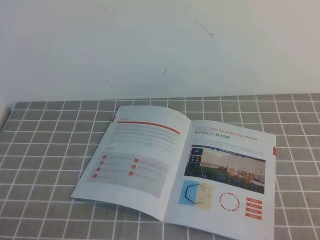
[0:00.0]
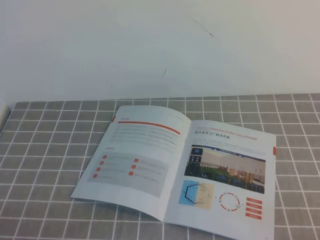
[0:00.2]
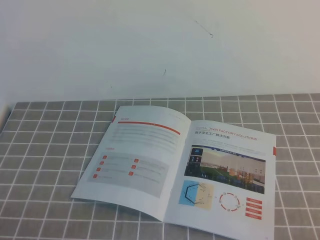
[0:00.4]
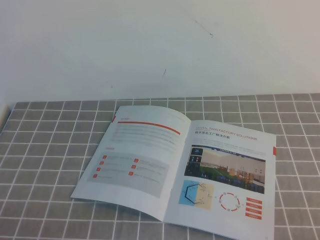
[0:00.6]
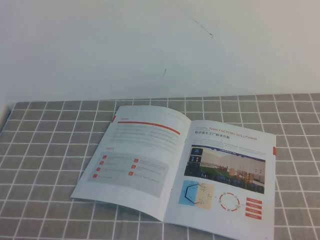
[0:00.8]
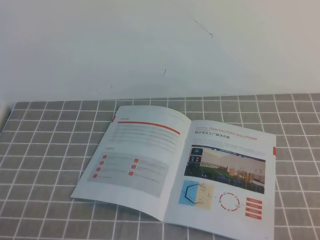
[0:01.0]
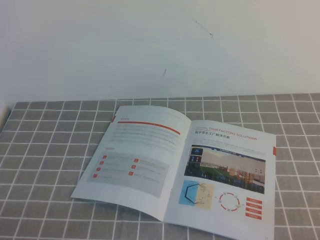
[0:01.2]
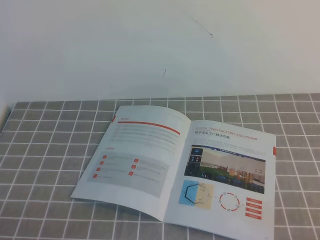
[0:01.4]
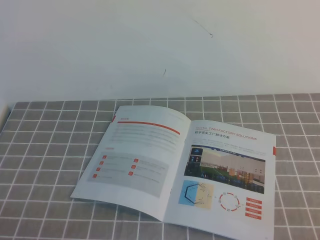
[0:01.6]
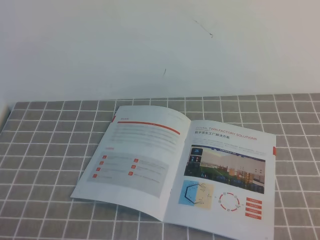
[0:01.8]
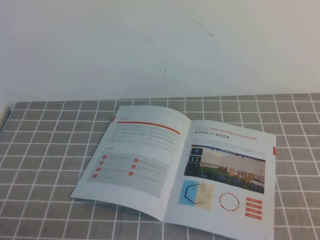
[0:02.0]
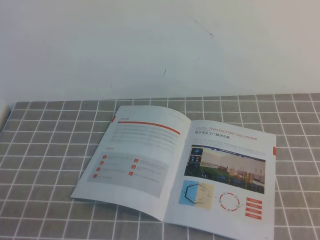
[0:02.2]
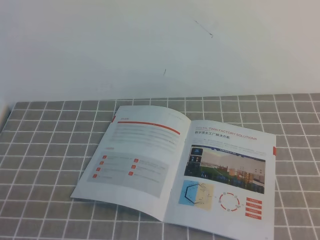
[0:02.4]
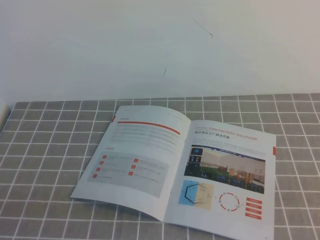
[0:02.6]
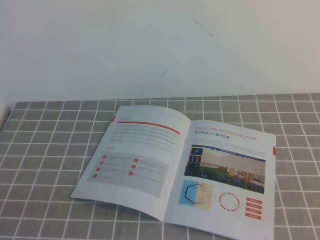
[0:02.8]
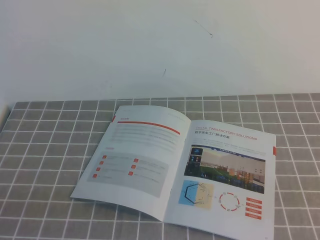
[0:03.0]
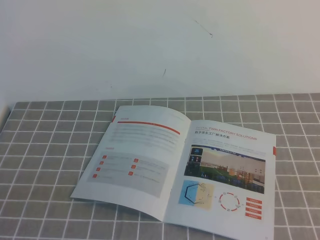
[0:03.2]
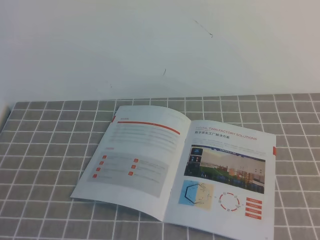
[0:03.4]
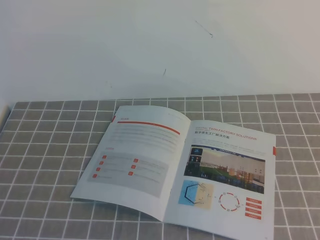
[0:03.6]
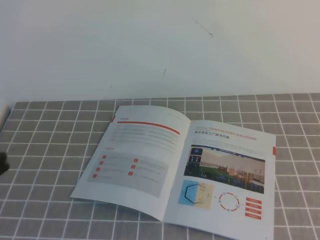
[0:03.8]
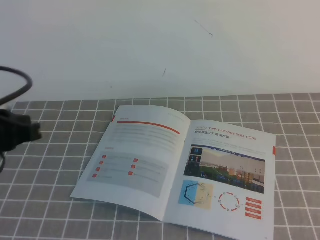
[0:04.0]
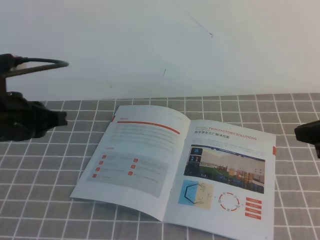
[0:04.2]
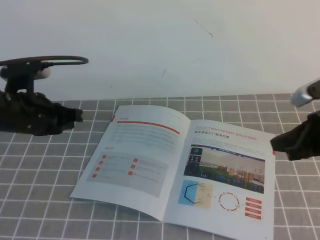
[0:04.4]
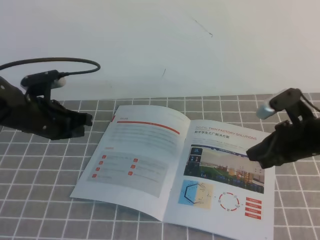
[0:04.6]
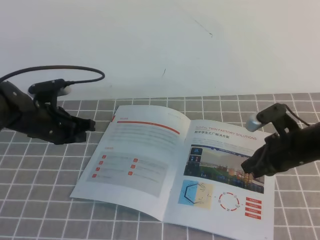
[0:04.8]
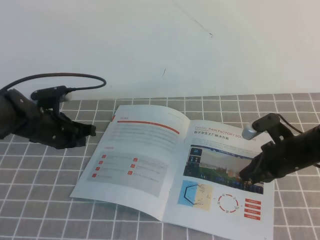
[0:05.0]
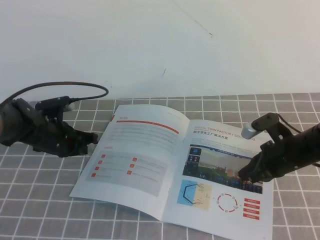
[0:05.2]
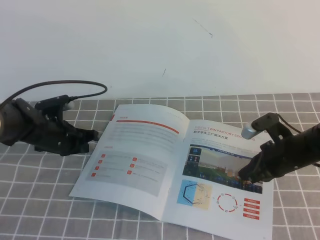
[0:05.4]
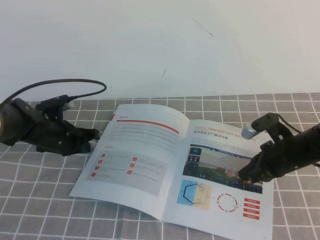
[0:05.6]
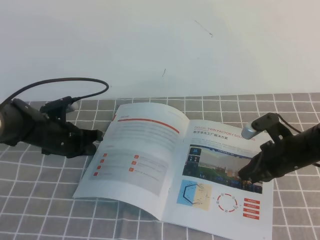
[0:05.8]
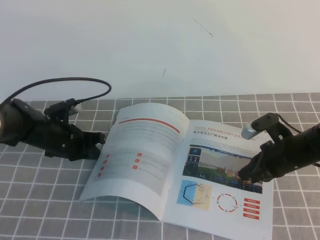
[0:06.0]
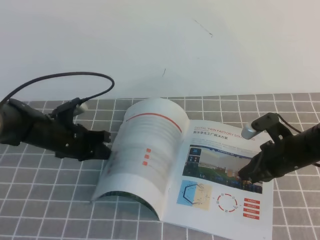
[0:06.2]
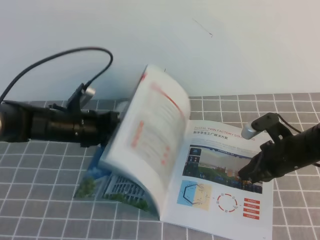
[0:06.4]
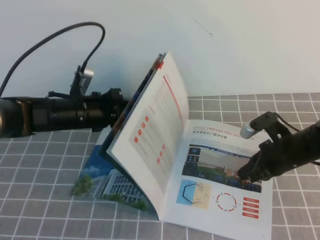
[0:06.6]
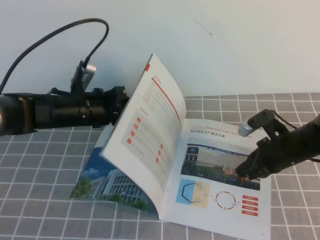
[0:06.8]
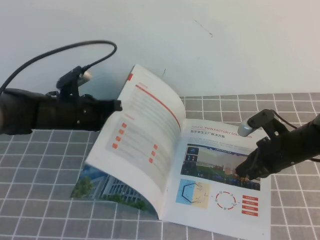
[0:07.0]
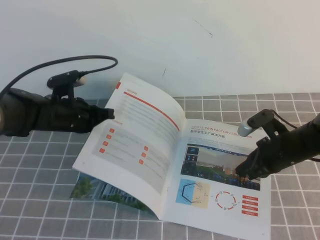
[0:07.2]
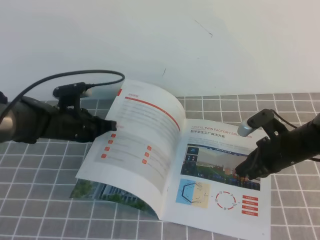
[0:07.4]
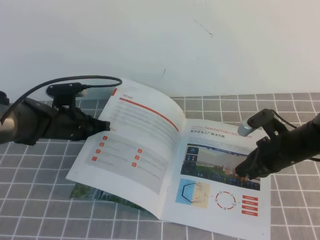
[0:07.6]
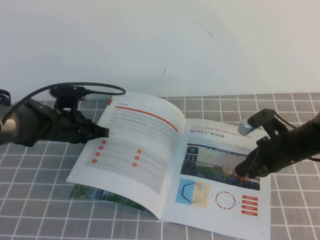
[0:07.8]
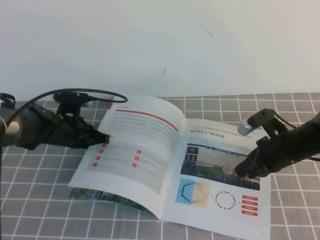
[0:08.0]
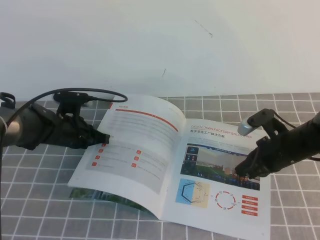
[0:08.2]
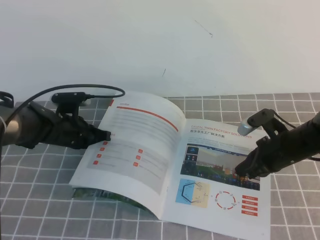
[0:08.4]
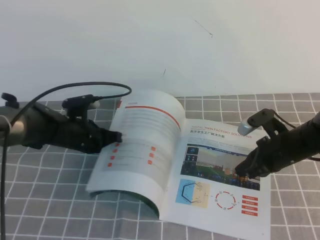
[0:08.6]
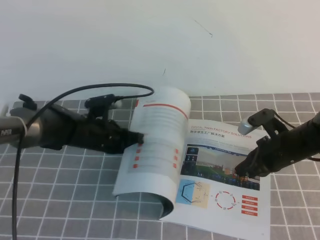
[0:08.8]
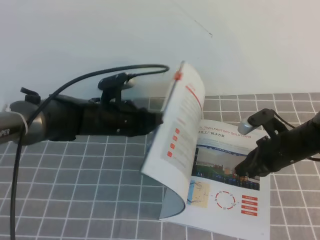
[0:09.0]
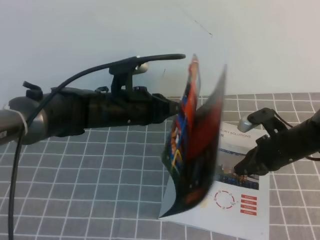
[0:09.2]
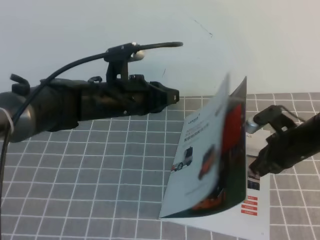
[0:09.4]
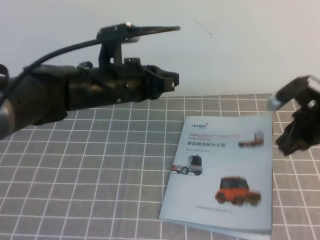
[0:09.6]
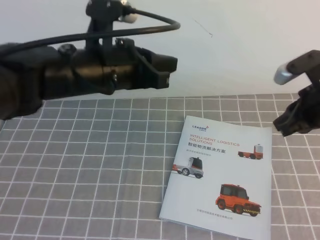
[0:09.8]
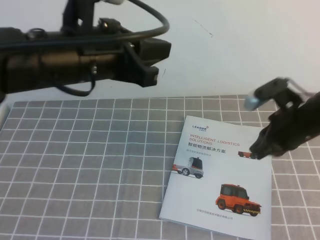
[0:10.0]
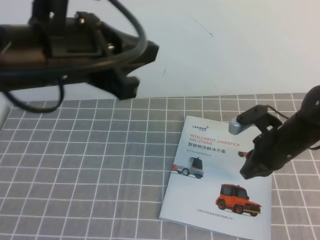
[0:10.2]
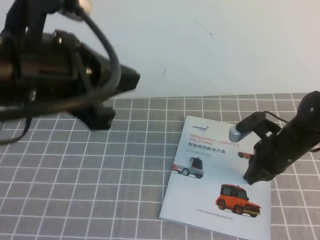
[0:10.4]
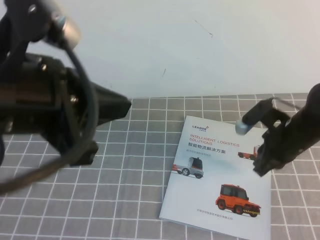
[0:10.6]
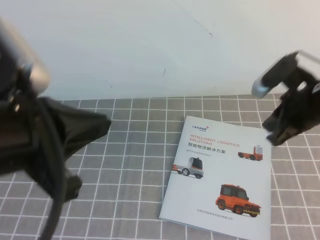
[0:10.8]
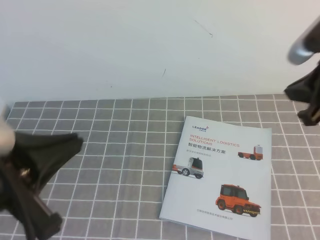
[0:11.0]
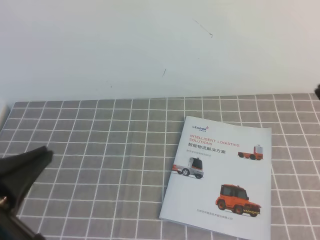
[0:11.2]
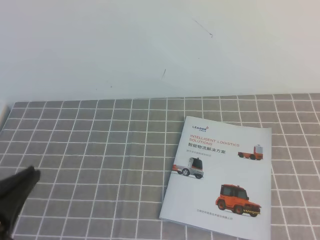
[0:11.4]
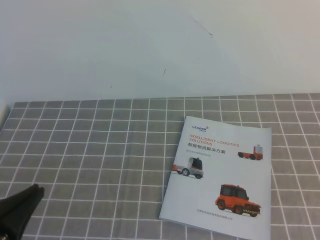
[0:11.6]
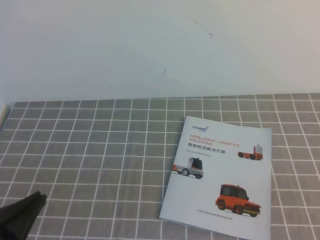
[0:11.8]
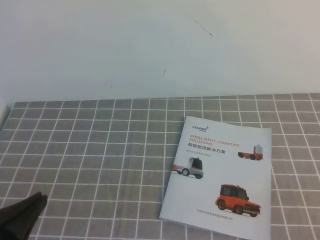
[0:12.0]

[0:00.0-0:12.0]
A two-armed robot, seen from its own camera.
Task of the whole recording: on the grey tablecloth, hold the book with one hand and close it with the other.
0:00.0 to 0:01.6: Both grippers stay put.
0:03.0 to 0:04.4: The grippers both shift forward by about 25 cm.
0:04.4 to 0:06.0: Both grippers travel together downward and forward, roughly 15 cm.
0:07.6 to 0:09.0: The left gripper heads to the right, covering approximately 10 cm.
0:09.0 to 0:10.4: The right gripper reaches about 10 cm upward, then returns. Meanwhile the left gripper is displaced upward and backward by about 30 cm.
0:10.4 to 0:12.0: The left gripper travels downward, backward and to the left by roughly 25 cm. The right gripper shifts some 30 cm backward.

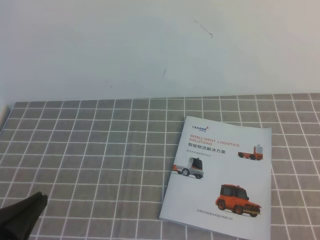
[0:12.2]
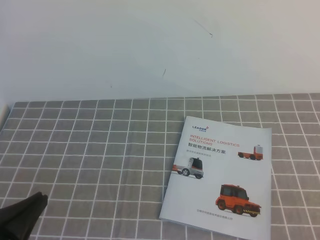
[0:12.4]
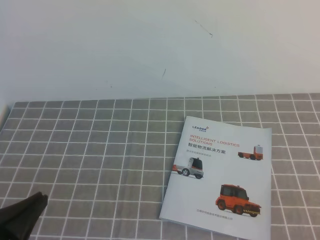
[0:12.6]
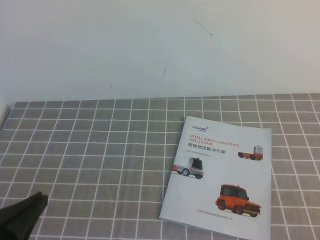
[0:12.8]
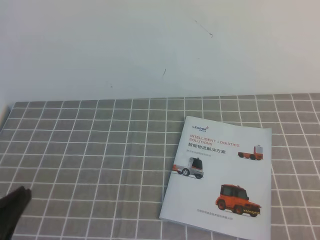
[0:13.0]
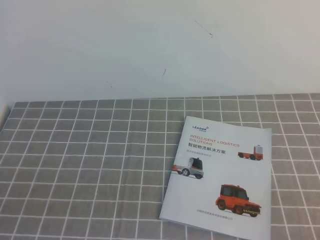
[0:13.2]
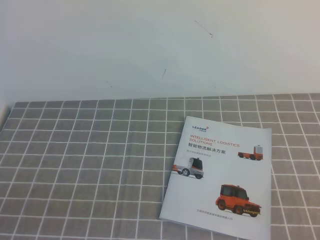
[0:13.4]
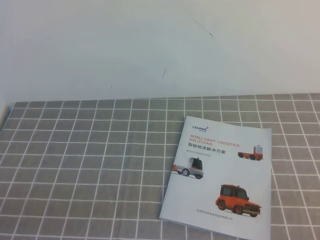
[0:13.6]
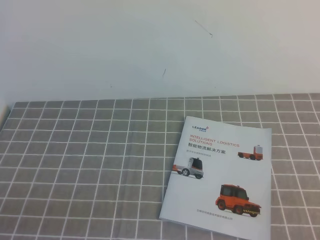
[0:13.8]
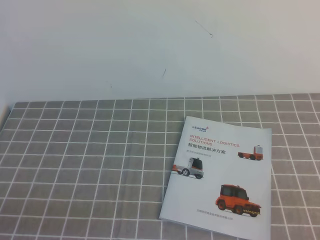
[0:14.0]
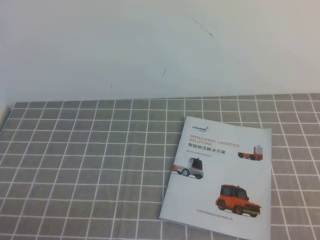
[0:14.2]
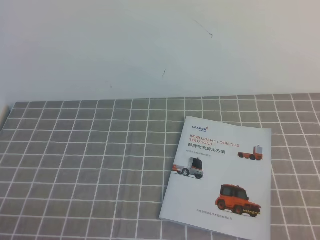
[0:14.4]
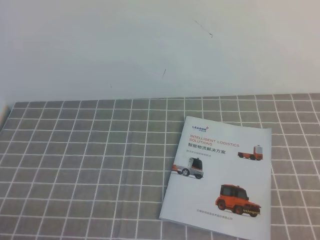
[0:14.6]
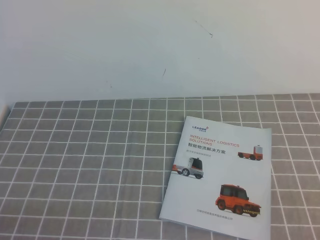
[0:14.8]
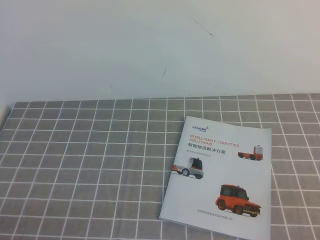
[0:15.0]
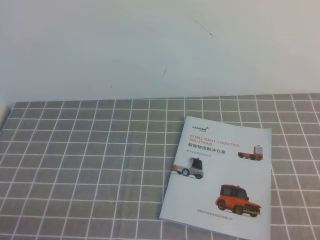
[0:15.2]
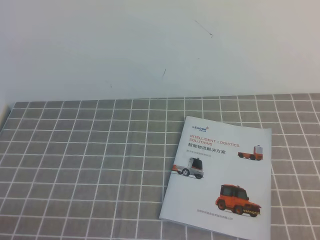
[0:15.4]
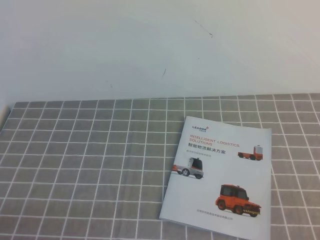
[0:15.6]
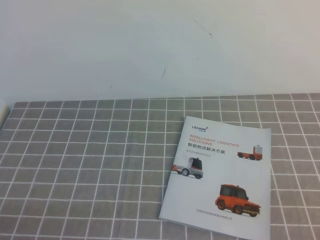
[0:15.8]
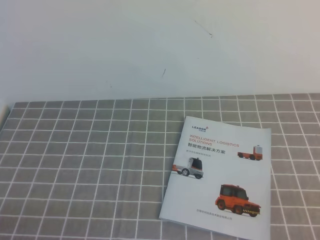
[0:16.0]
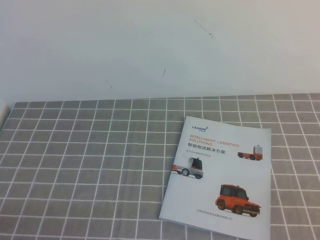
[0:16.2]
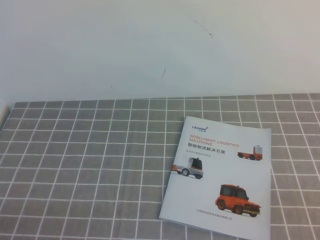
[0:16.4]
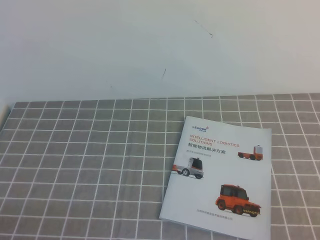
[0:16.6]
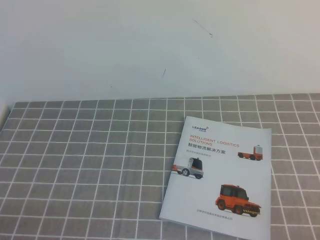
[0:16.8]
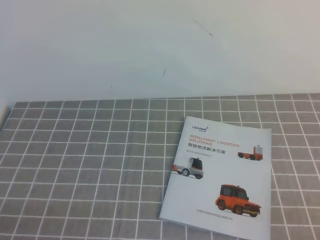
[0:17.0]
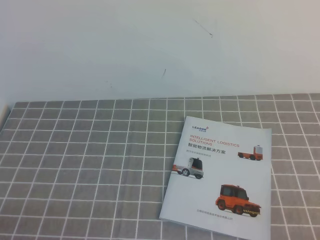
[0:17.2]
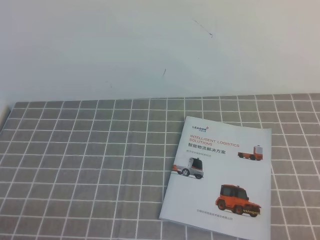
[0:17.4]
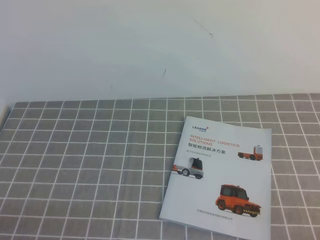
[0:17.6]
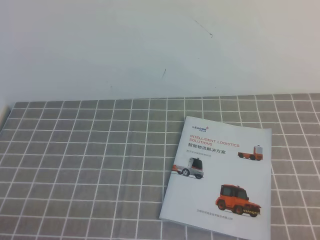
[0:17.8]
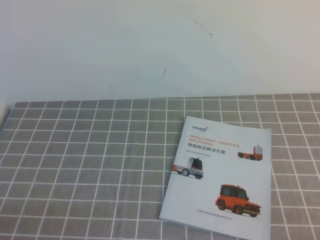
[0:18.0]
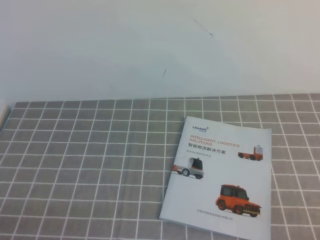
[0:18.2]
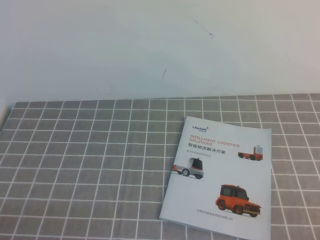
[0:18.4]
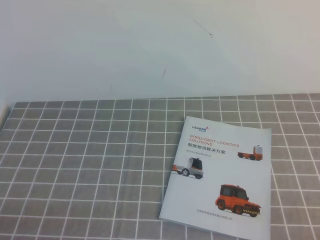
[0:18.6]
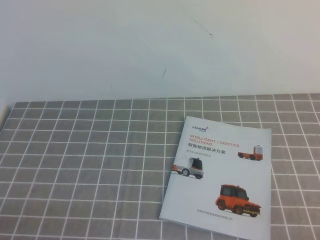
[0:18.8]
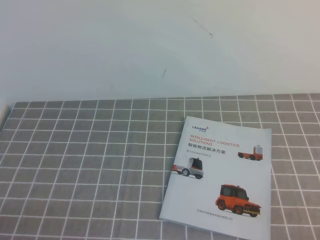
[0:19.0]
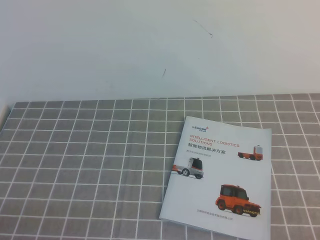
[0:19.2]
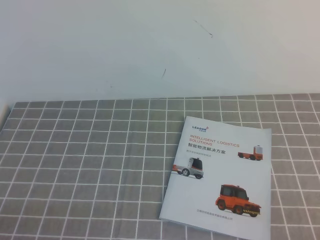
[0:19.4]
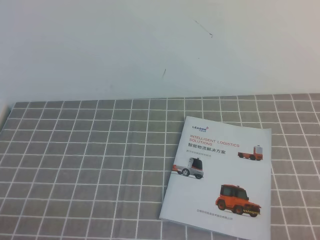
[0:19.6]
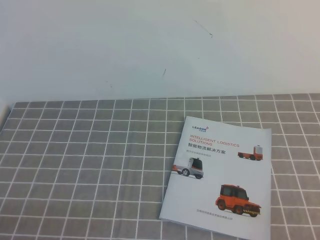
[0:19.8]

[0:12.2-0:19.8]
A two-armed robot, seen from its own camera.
Task of the whole recording: on the grey tablecloth, hold the book with one hand and close it with the other.
Step, 0:12.2 to 0:19.8: Close the open book.
0:12.2 to 0:13.8: The left gripper changes place by about 5 cm.
0:18.2 to 0:19.8: Both grippers stay about where they are.
